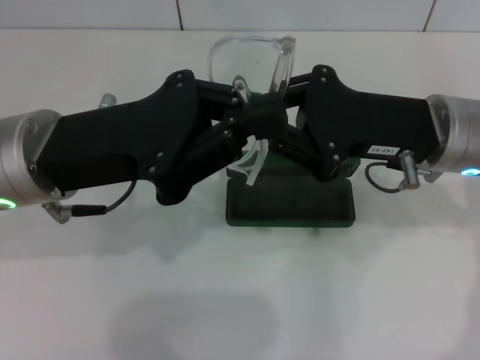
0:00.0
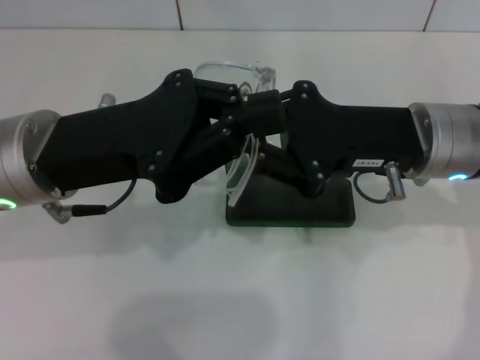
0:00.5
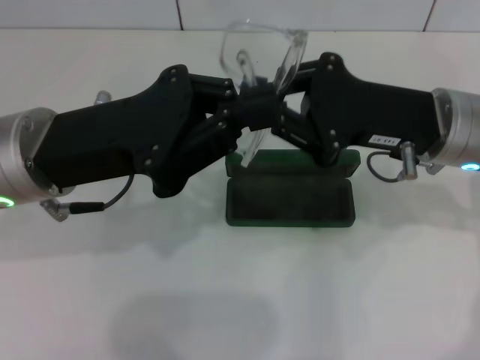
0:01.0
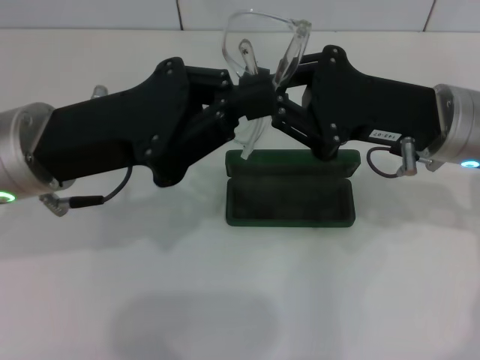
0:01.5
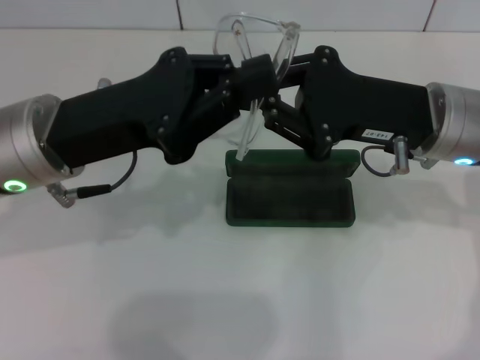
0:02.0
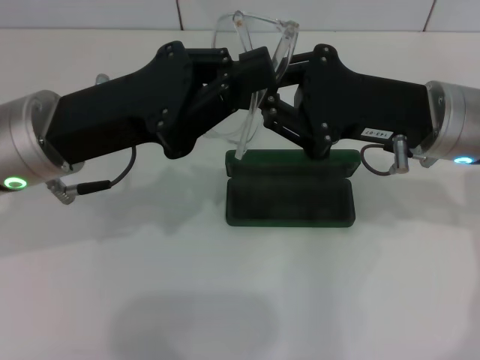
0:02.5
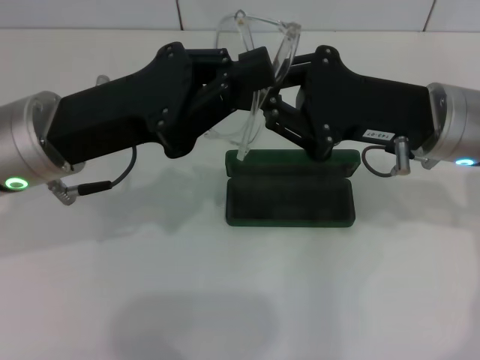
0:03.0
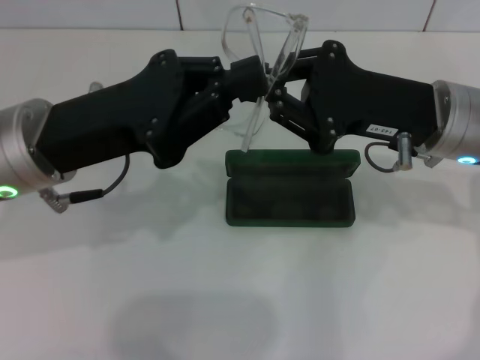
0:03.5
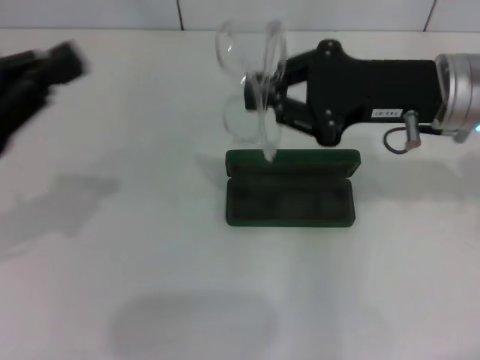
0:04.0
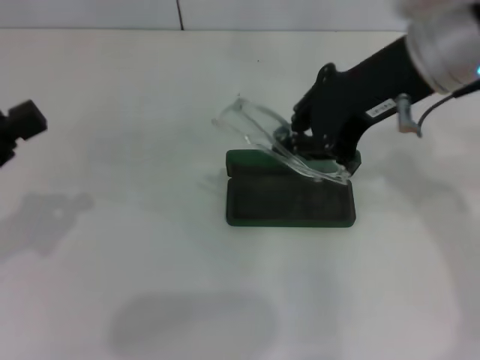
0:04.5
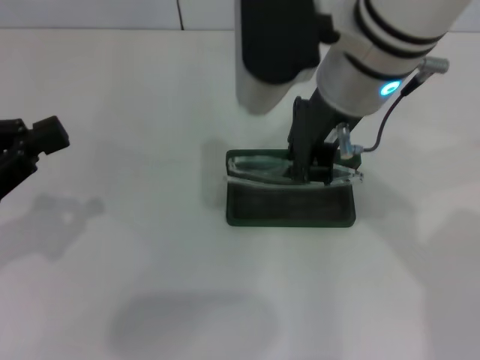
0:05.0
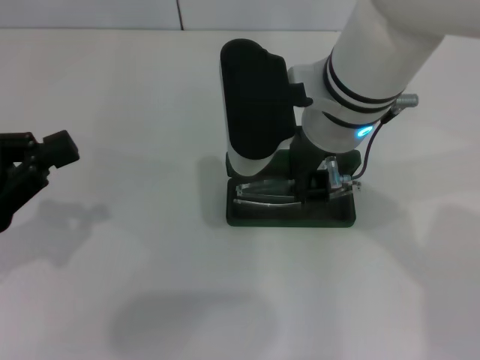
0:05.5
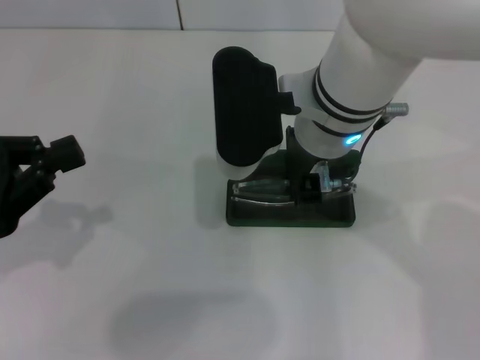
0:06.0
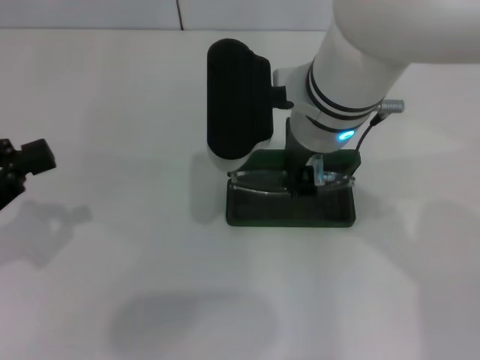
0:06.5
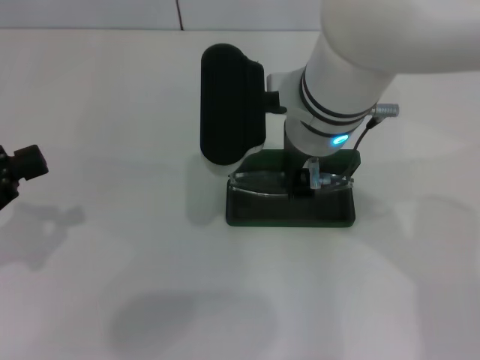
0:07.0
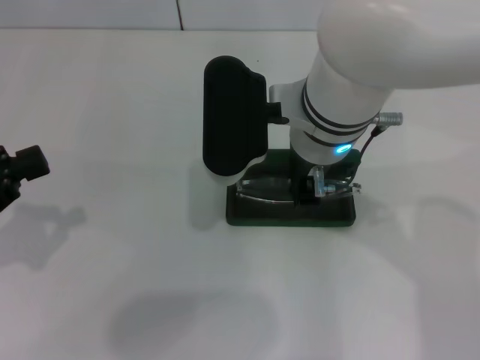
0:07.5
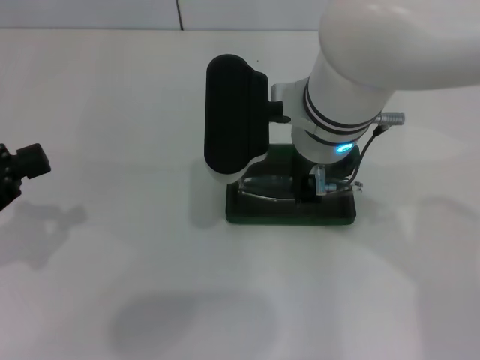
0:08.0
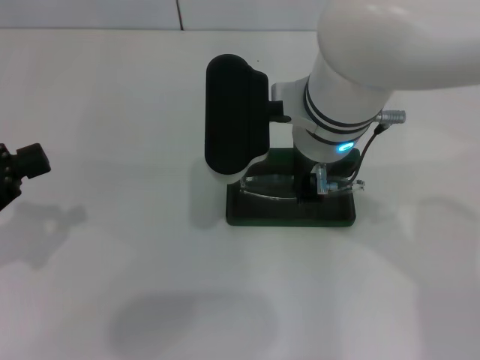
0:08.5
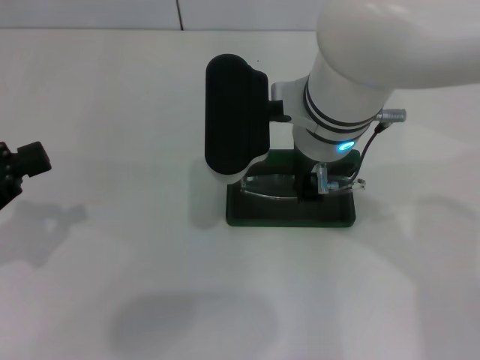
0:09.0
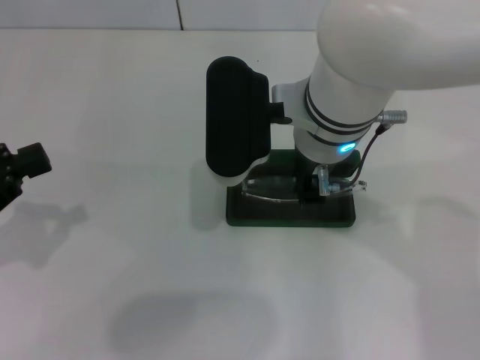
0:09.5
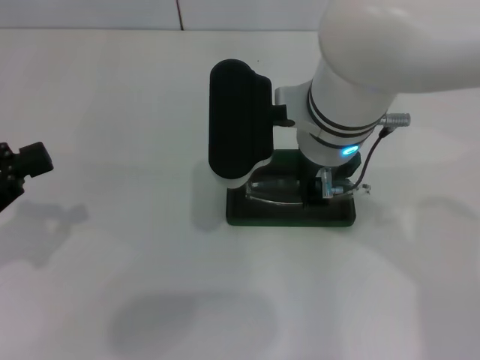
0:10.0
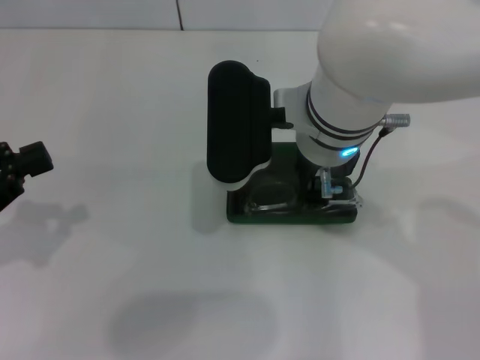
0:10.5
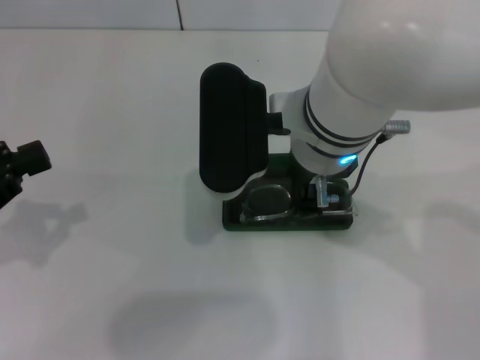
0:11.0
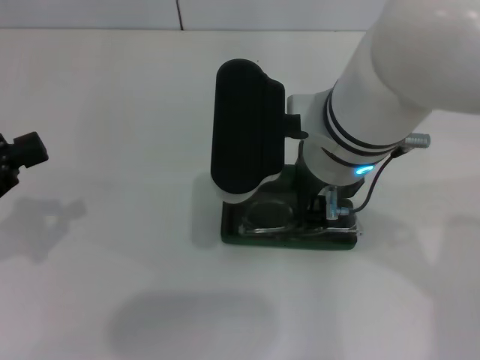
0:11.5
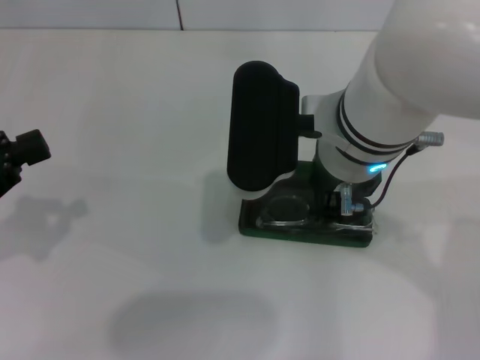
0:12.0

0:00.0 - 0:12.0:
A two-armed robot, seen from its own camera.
0:00.0 - 0:02.0: The grippers stay close to where they were, moving slightly.
0:02.0 - 0:04.0: The left gripper travels to the left by some 10 cm.
0:04.0 - 0:06.0: The right gripper goes approximately 15 cm to the left.
0:06.0 - 0:08.0: The grippers stay close to where they were, moving slightly.
0:08.0 - 0:10.0: Neither gripper changes place.
0:10.0 - 0:12.0: The grippers stay close to where they were, moving slightly.

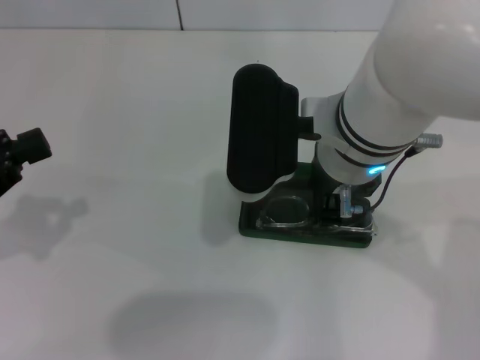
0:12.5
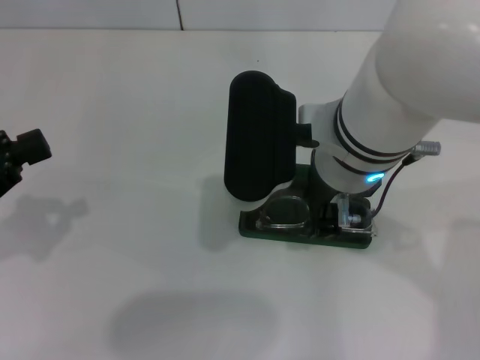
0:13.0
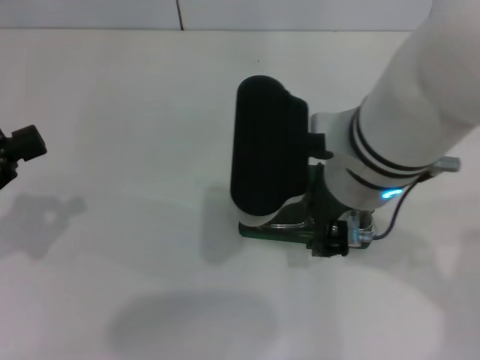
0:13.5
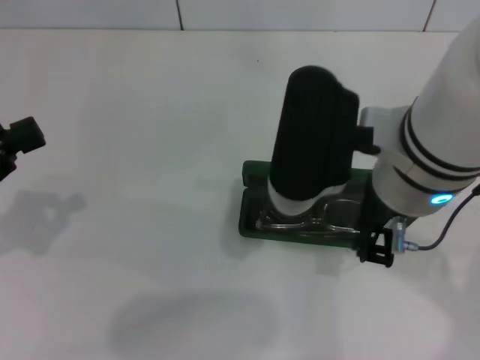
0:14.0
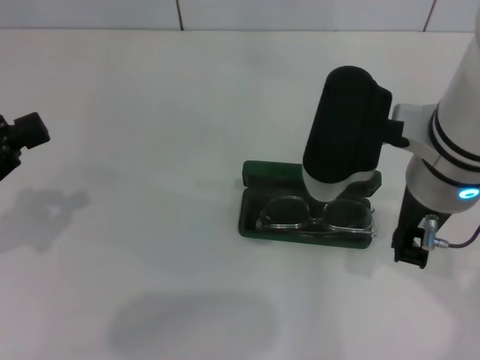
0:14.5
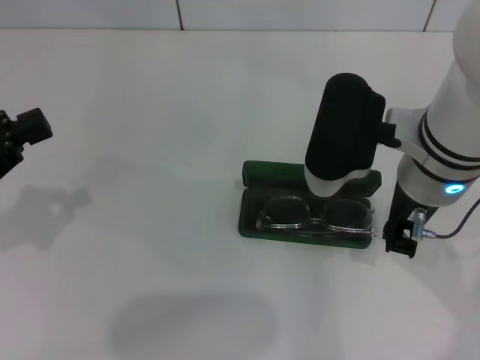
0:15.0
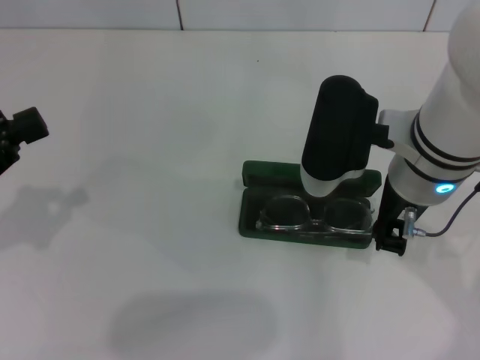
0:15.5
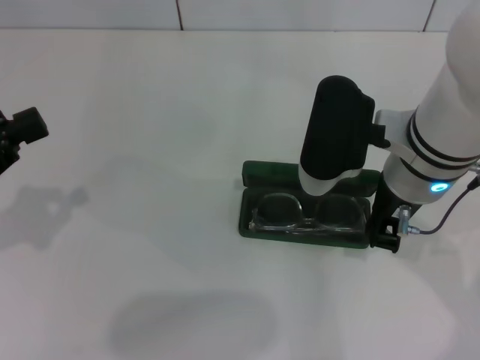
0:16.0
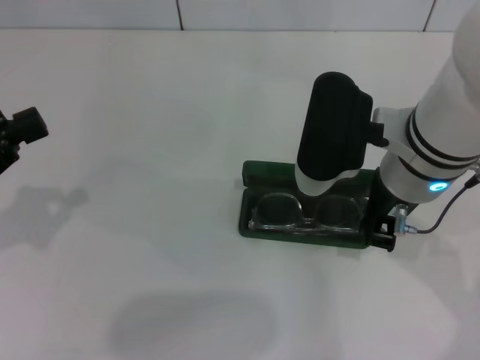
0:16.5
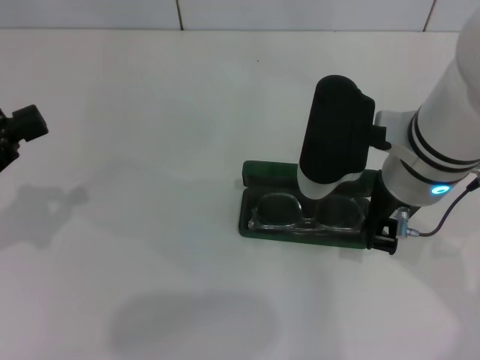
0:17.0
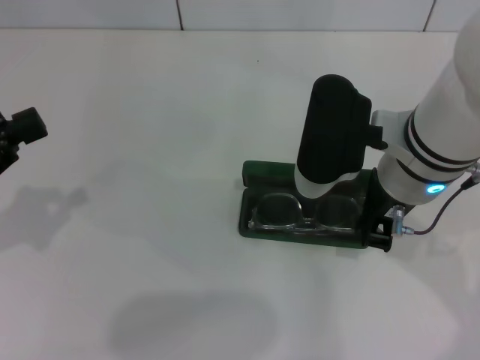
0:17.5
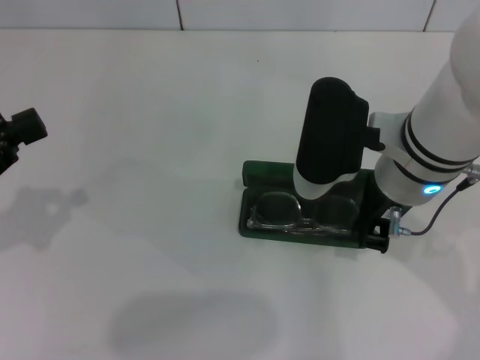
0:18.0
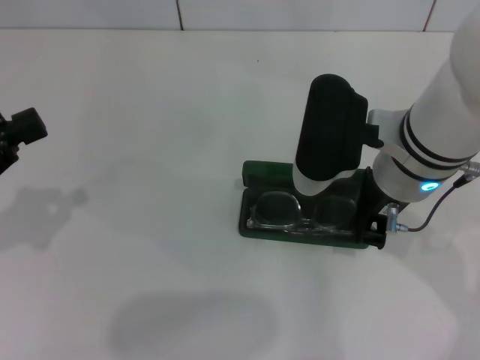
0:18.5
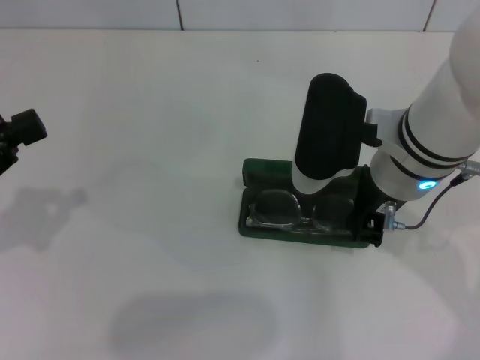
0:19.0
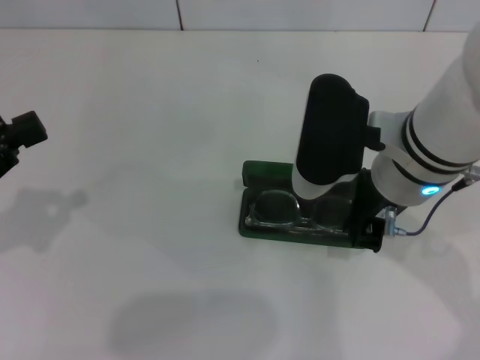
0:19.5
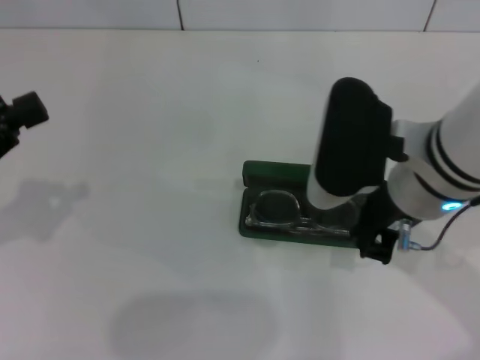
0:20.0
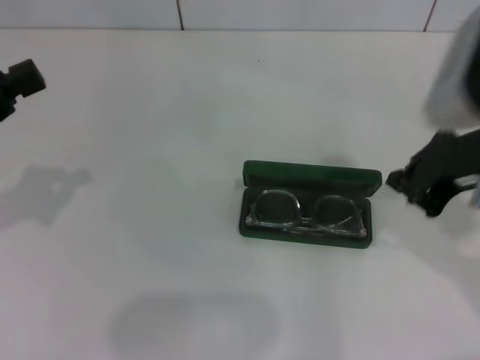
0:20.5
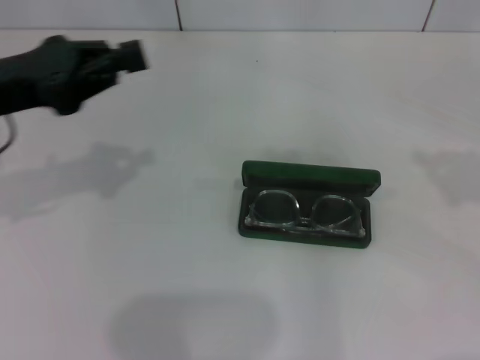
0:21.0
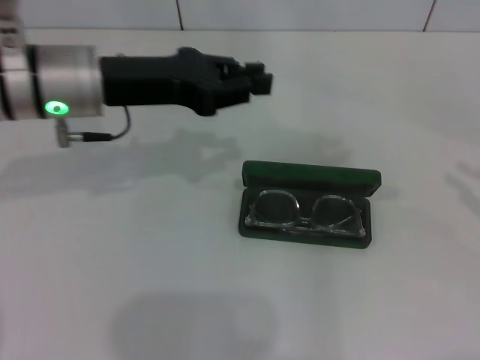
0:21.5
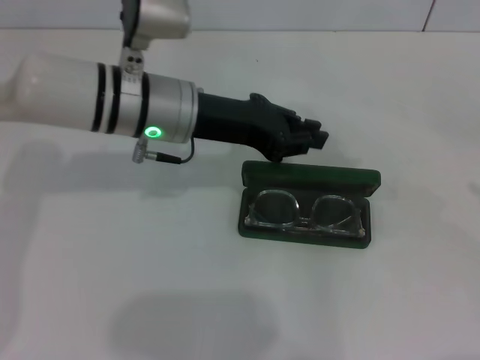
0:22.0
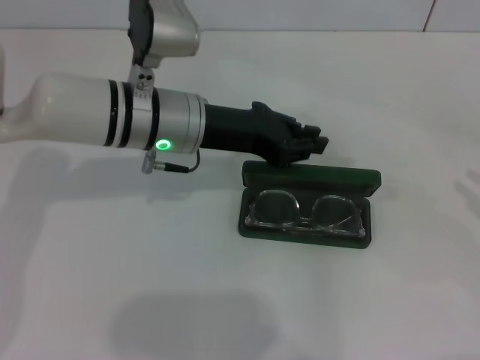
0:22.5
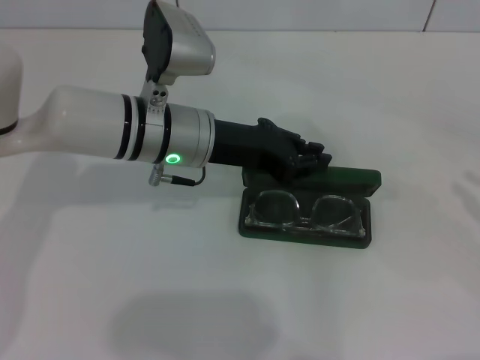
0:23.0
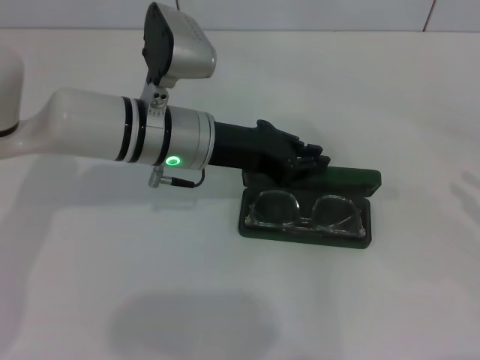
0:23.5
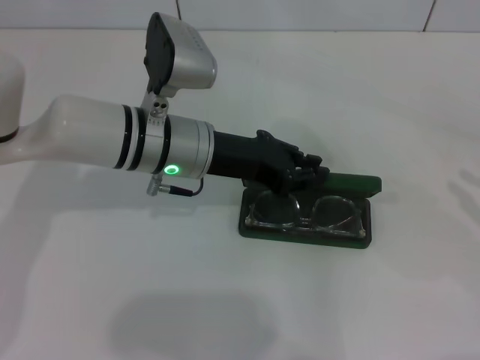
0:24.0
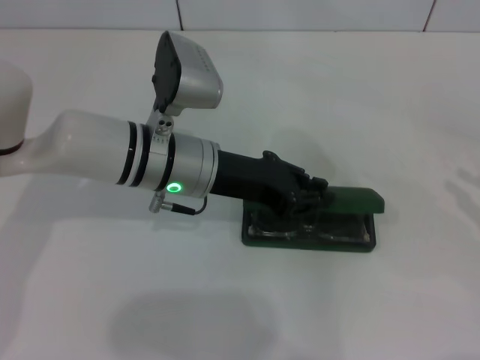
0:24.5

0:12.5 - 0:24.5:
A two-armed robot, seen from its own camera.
Step, 0:12.5 - 0:19.0: Put the glasses into the case with your right hand.
0:12.5 - 0:14.5: The right gripper goes approximately 5 cm to the right, and closes its fingers.
0:14.5 - 0:16.5: The grippers stay close to where they were, moving slightly.
0:16.5 - 0:18.5: Both grippers stay about where they are.
0:18.5 - 0:20.5: The right gripper travels to the right and upward by approximately 10 cm.
0:20.5 - 0:22.5: The right gripper shifts some 25 cm to the right. Meanwhile the left gripper heads to the right and forward, covering approximately 25 cm.
0:22.5 - 0:24.5: The grippers make only small movements.

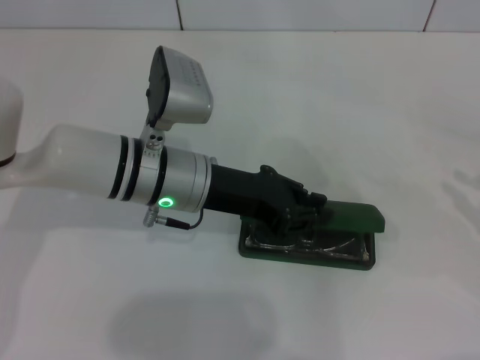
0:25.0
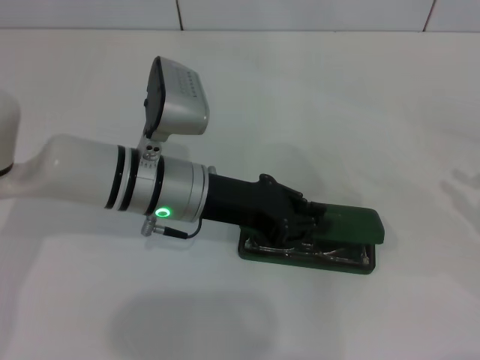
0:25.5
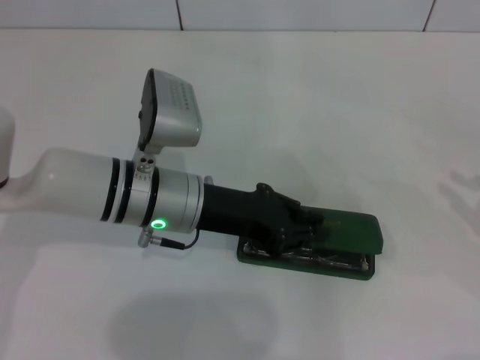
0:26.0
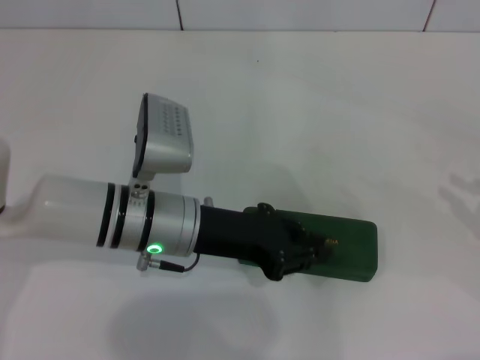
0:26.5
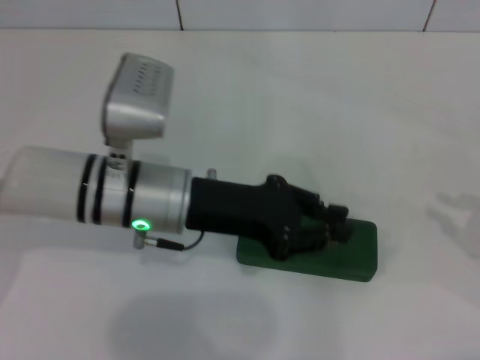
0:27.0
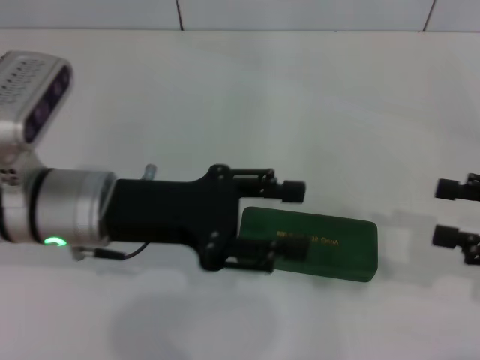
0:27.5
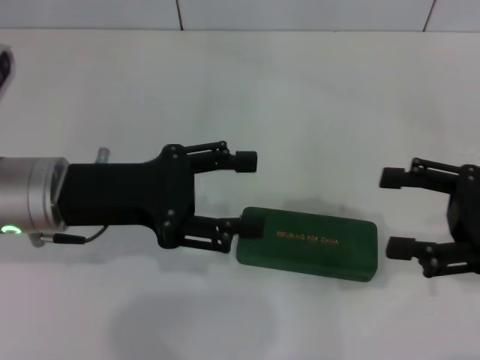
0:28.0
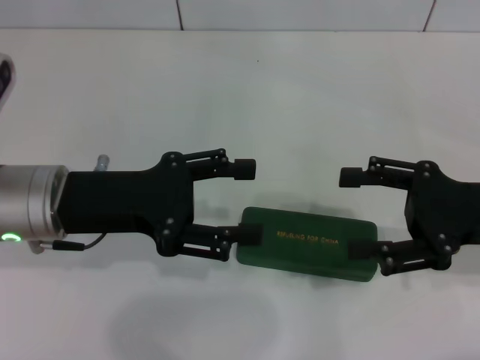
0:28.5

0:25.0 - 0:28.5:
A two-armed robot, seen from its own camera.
0:25.0 - 0:27.0: The grippers stay close to where they were, moving slightly.
0:27.0 - 0:28.5: Both grippers travel together to the left, approximately 10 cm. The right gripper opens; the left gripper opens.
